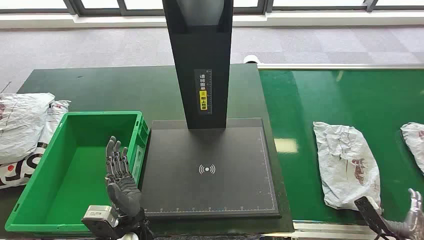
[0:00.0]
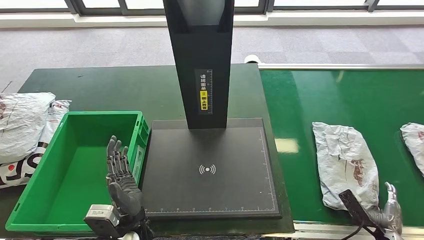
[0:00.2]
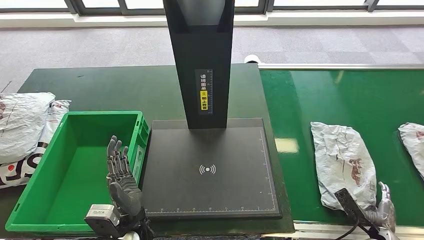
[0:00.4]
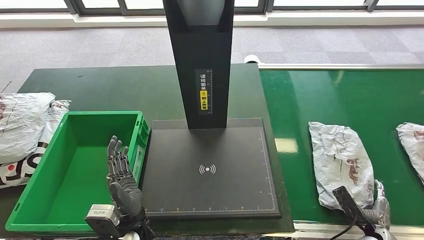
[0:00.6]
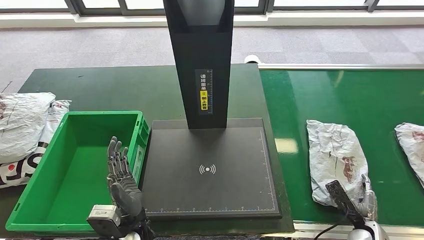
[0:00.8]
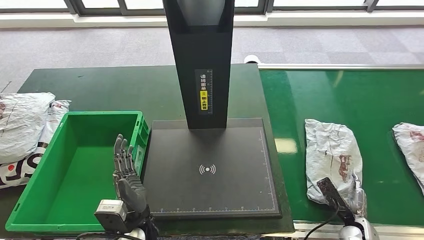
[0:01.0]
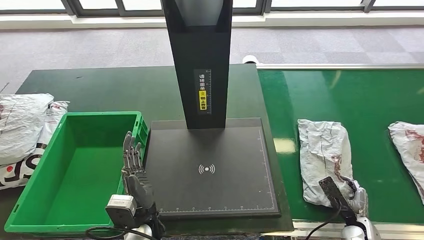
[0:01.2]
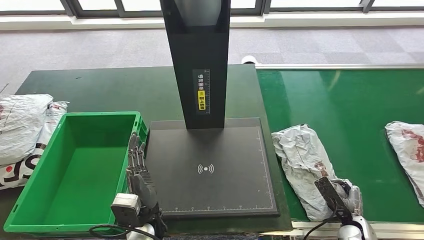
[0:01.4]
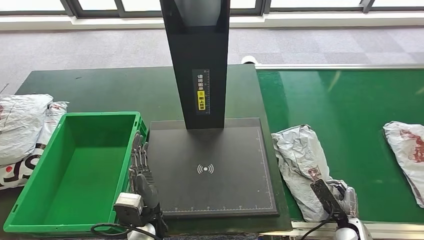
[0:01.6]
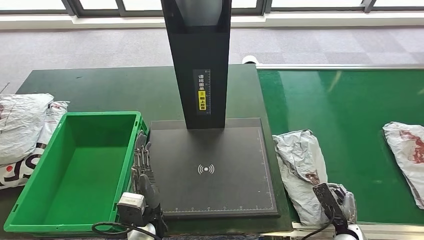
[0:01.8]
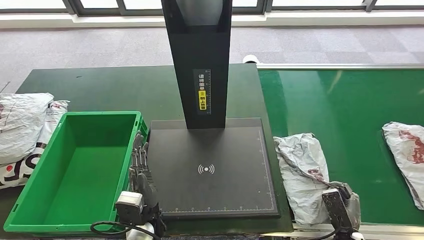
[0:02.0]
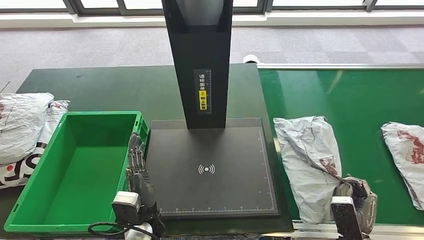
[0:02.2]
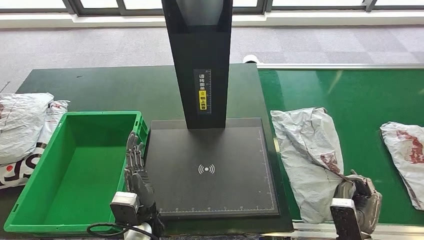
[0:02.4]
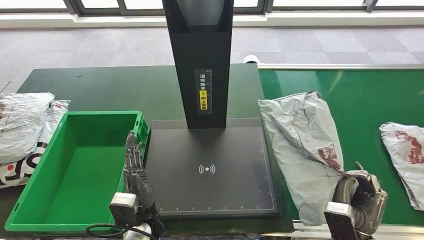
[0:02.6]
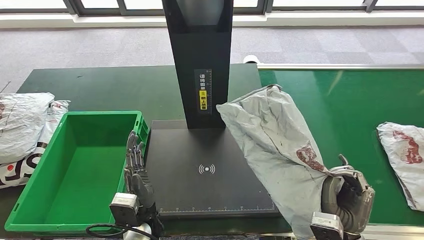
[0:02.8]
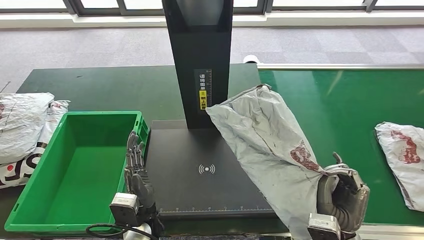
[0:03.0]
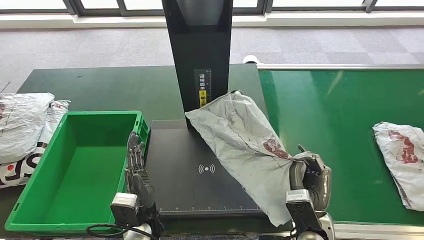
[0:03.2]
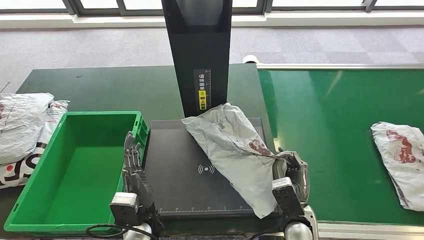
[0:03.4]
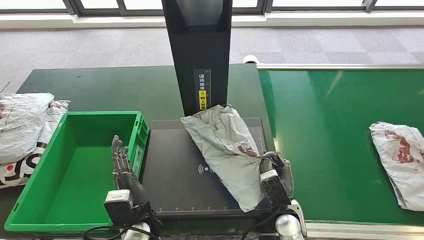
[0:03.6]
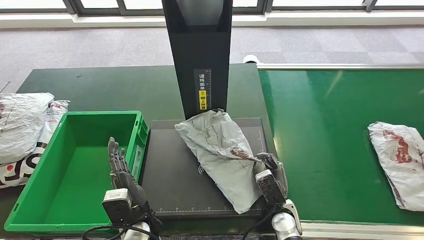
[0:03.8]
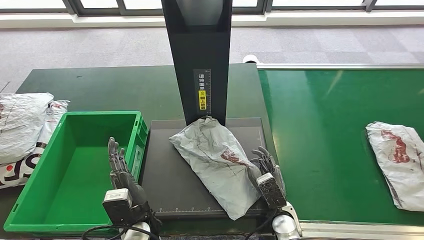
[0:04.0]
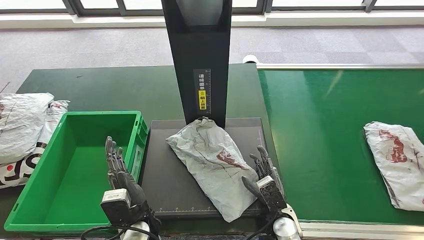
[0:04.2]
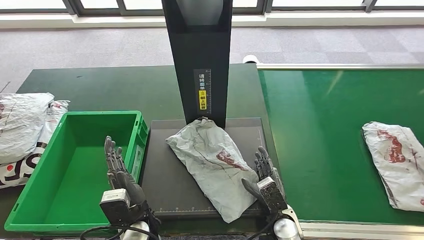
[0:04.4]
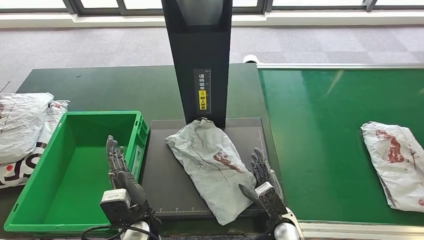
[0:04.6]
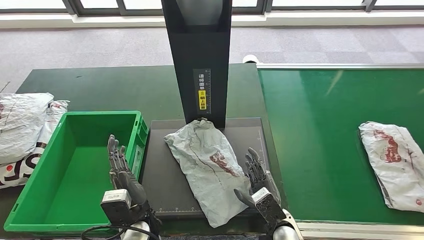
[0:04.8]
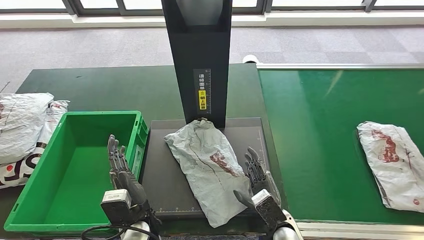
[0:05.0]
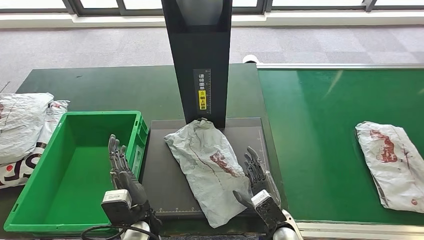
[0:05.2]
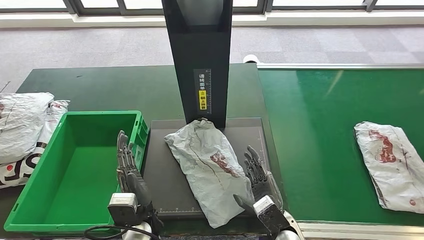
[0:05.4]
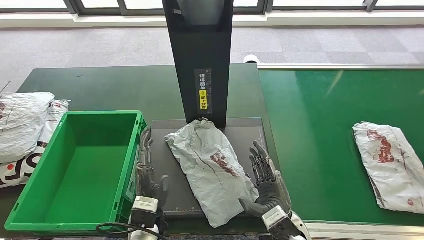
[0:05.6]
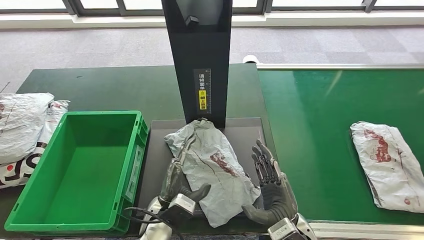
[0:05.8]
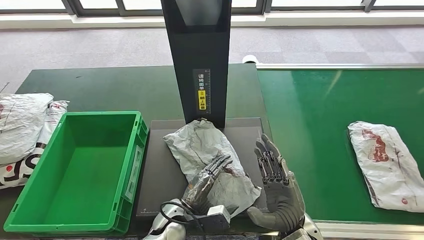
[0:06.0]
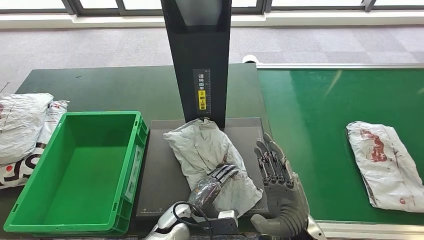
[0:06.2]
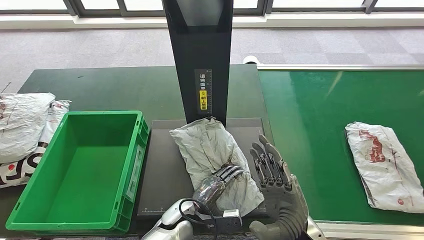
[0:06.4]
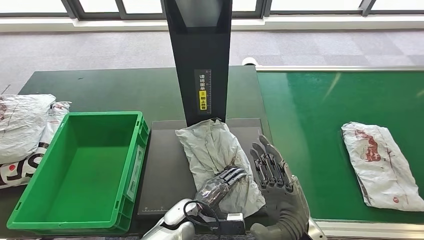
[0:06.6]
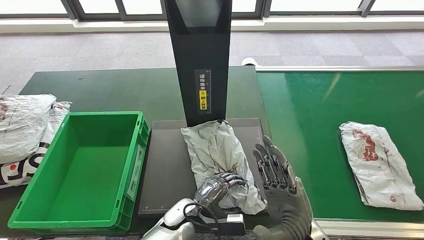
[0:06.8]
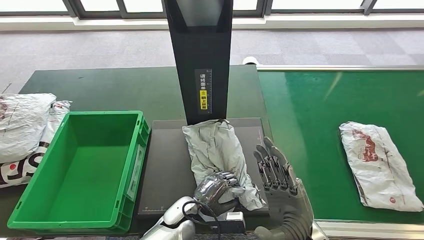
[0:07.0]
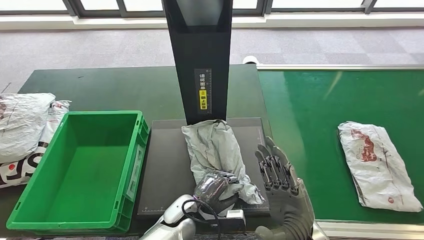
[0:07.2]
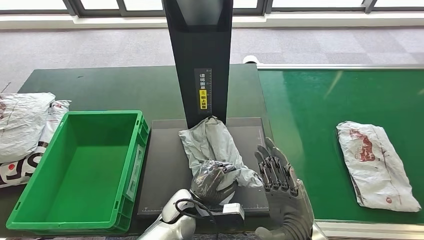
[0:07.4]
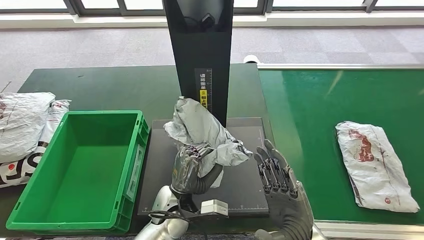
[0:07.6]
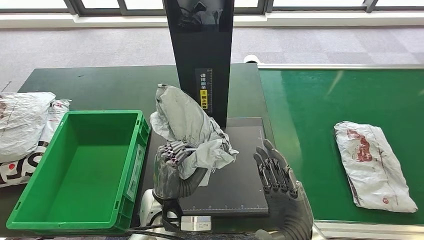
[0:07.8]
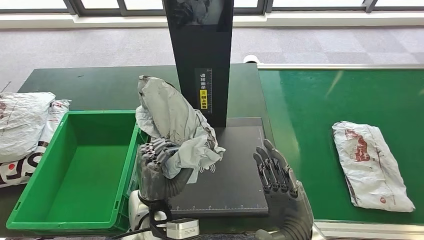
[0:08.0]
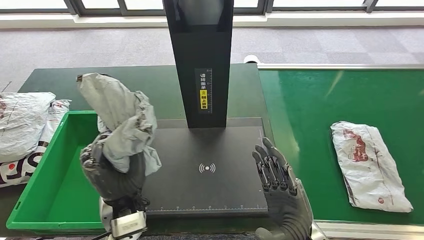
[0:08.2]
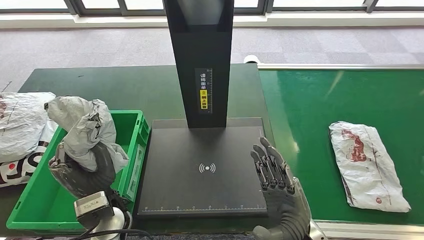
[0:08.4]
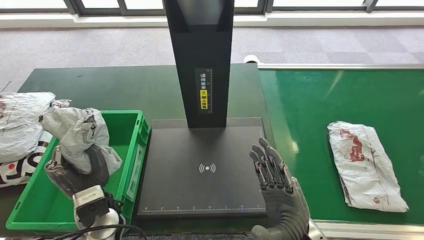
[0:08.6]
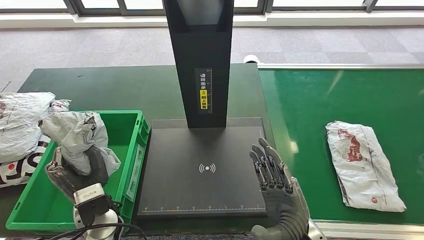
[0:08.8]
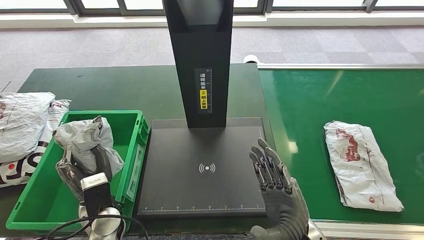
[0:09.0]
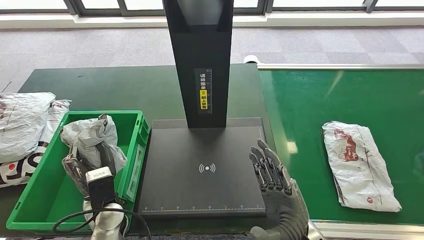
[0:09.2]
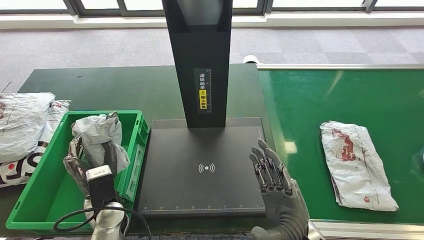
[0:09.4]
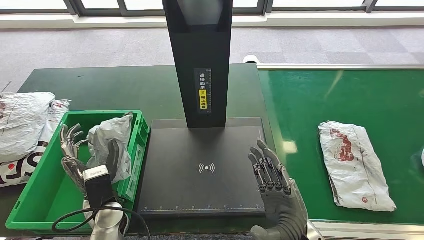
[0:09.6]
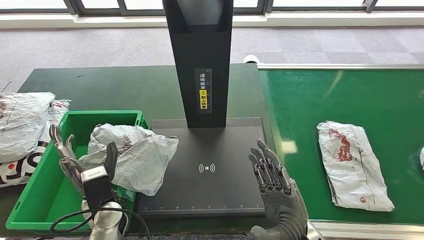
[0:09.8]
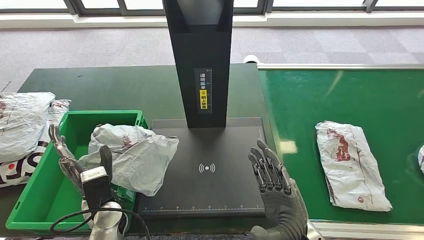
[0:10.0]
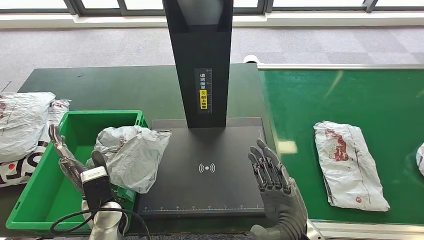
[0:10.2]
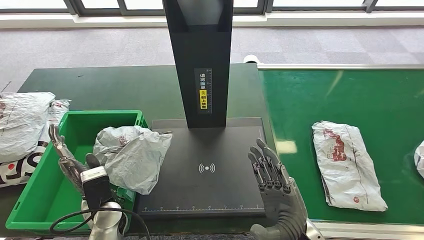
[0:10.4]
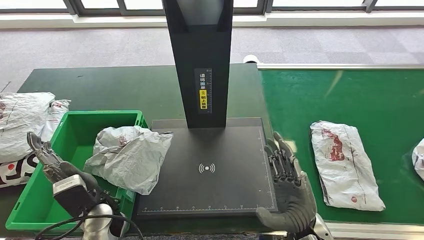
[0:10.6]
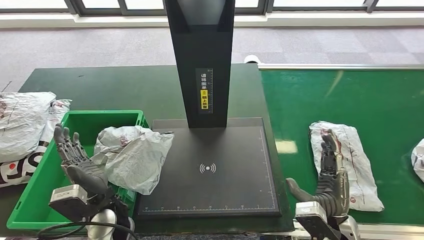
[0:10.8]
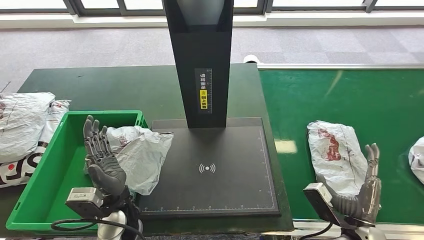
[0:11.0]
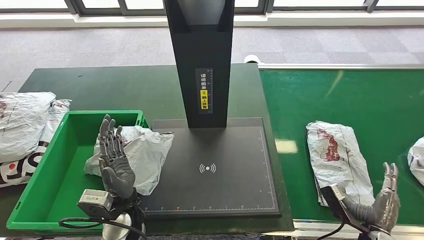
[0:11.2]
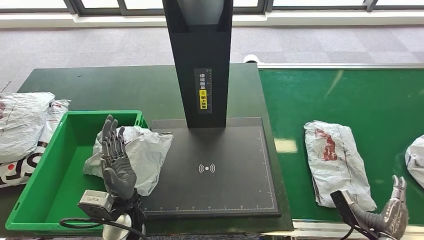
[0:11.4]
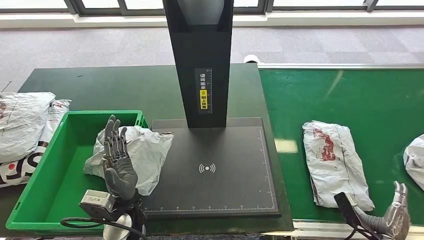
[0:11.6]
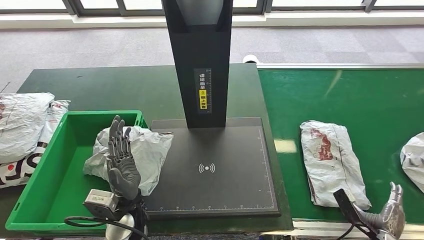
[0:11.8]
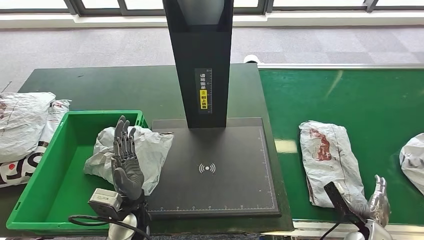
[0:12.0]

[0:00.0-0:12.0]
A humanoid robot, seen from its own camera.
Step, 0:00.0 to 0:02.4: Take the parcel off the conveyor belt.
Step, 0:02.6 to 0:04.6: Place the parcel onto the inbound machine.
Step, 0:05.6 to 0:08.0: Pick up the parcel from the inbound machine.
Step, 0:09.2 to 0:11.0: Put the parcel inside the courier box.
0:04.4 to 0:06.0: The left hand moves to the right, roughly 5 cm. Meanwhile the right hand is displaced upward by roughly 10 cm.
0:06.0 to 0:07.6: The left hand moves about 5 cm.
0:07.6 to 0:09.0: The left hand heads to the left, covering roughly 15 cm.
0:09.0 to 0:10.4: The hands move only a little.
0:10.4 to 0:12.0: The left hand travels to the right by roughly 5 cm. Meanwhile the right hand heads to the right and downward, covering approximately 30 cm.

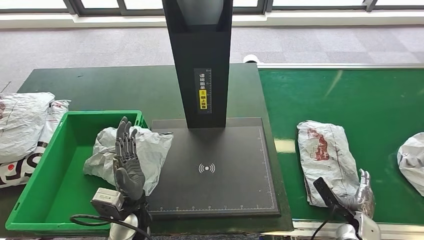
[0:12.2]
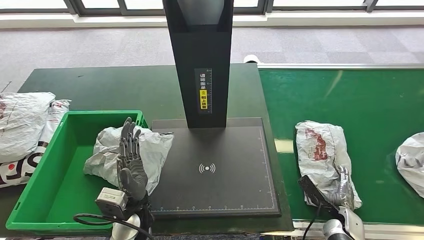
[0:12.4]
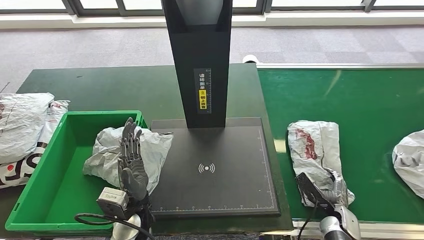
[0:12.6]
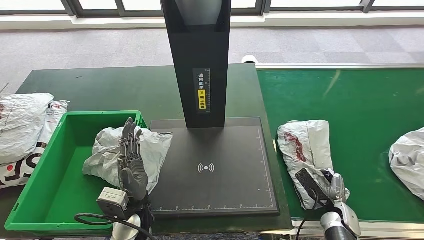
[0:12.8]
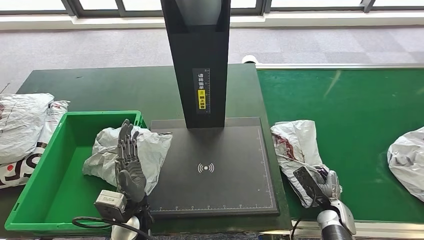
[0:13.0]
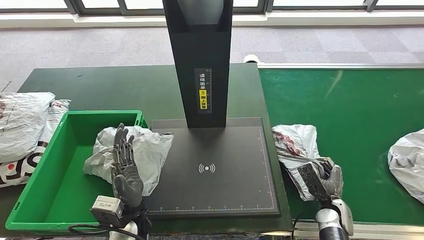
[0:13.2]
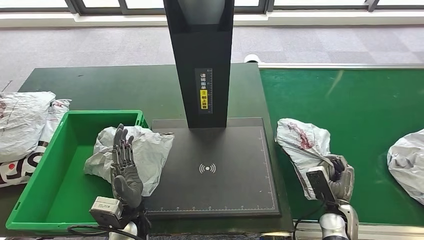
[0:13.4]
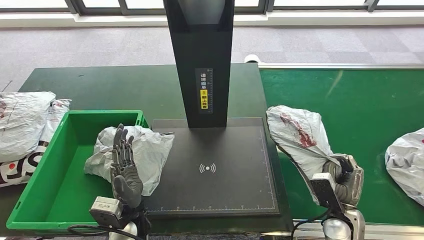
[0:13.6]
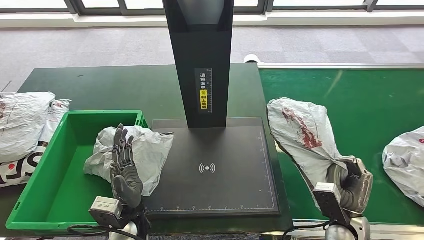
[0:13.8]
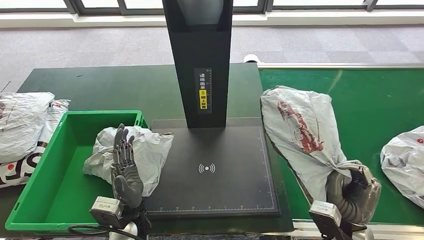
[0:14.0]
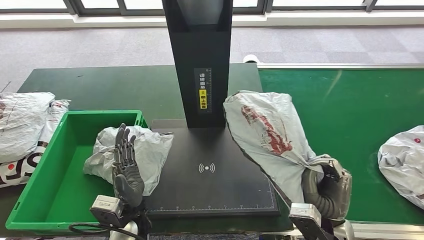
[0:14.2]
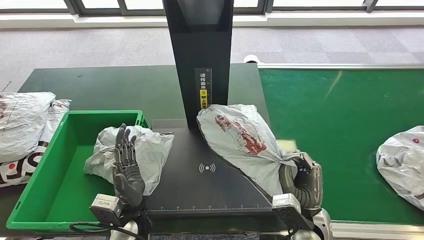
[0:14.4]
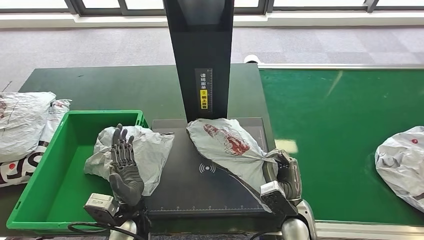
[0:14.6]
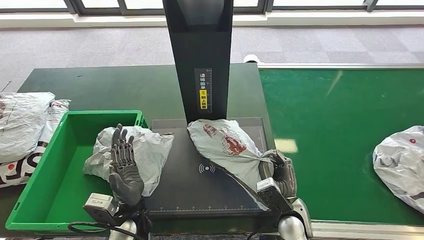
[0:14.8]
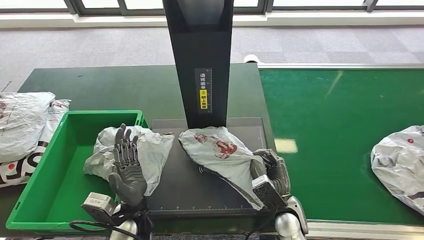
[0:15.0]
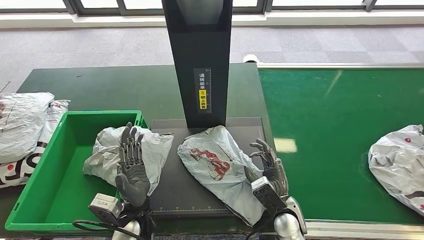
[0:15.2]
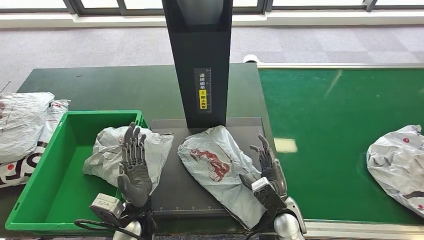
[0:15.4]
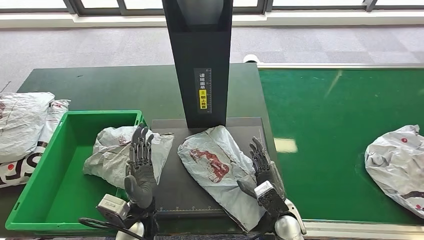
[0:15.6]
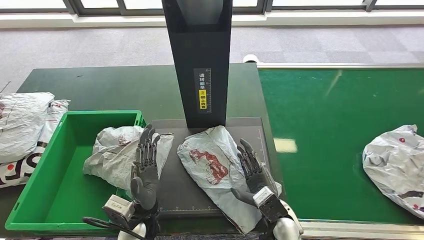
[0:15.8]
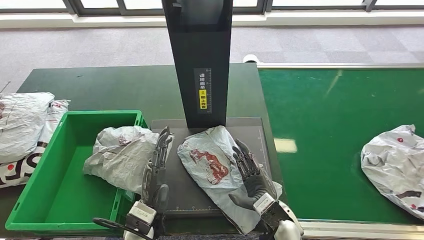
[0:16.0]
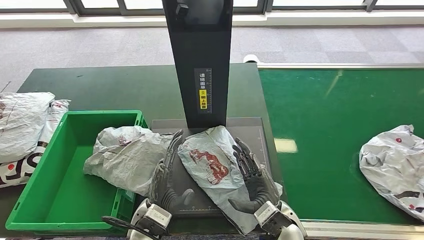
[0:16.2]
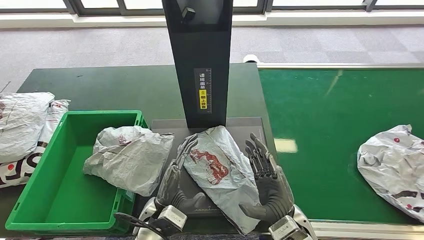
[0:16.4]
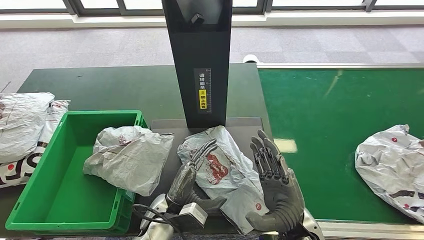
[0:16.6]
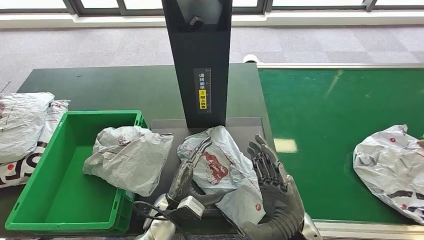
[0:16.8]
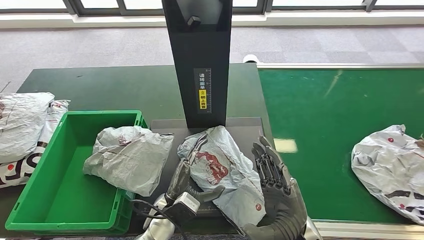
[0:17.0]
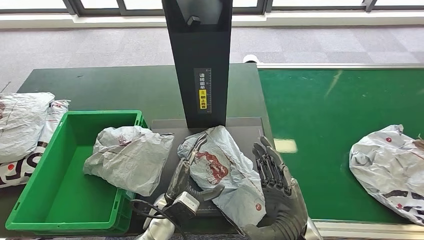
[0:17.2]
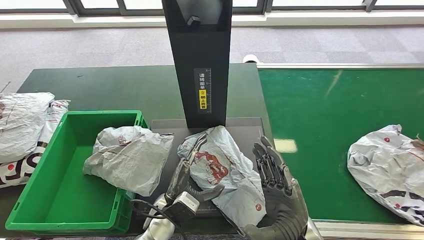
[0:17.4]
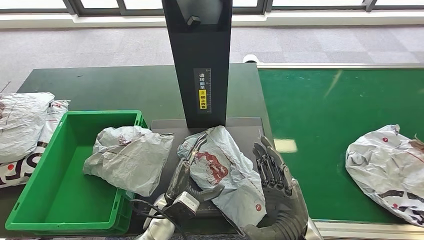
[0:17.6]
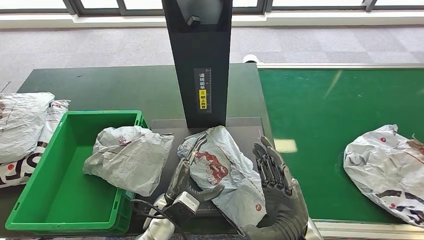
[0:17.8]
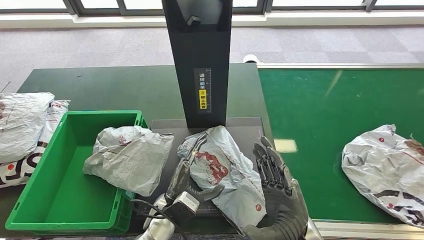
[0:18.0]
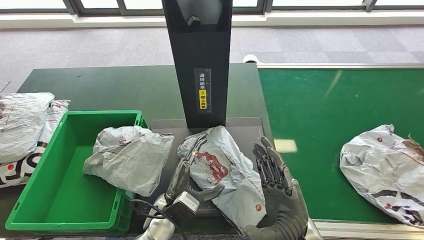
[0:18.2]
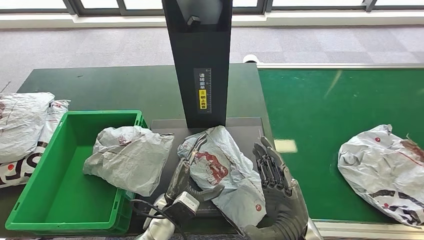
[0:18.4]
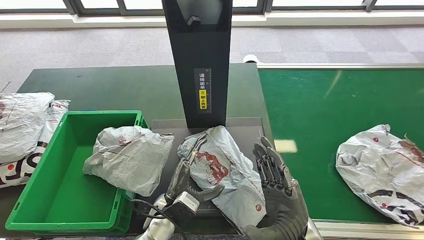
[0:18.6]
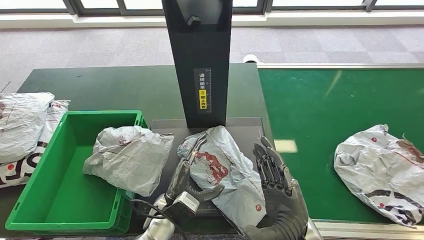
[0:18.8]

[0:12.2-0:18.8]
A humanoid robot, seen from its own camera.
Step, 0:12.2 to 0:14.4: Pick up the parcel from the conveyor belt.
Step, 0:15.4 to 0:16.4: Place the parcel onto the inbound machine.
0:12.2 to 0:13.8: The right hand shifts roughly 10 cm upward and to the left.
0:15.4 to 0:17.2: The left hand goes some 5 cm to the right. Meanwhile the right hand heads upward and backward, covering about 15 cm.
0:17.2 to 0:18.8: Neither hand changes place.
